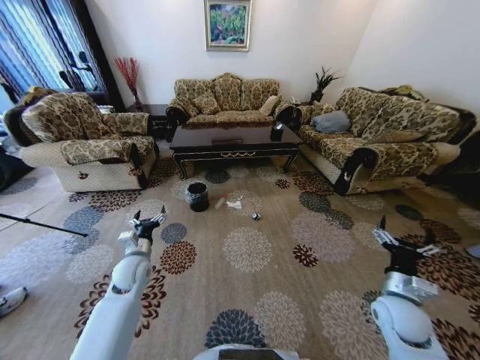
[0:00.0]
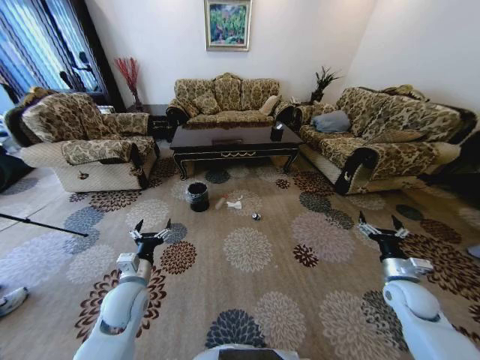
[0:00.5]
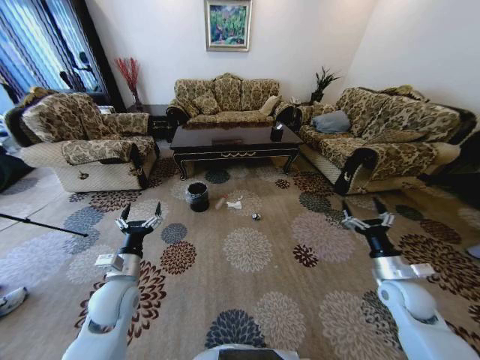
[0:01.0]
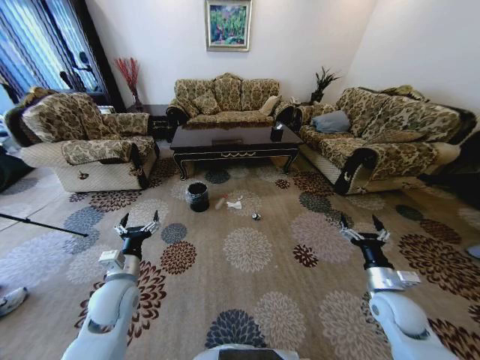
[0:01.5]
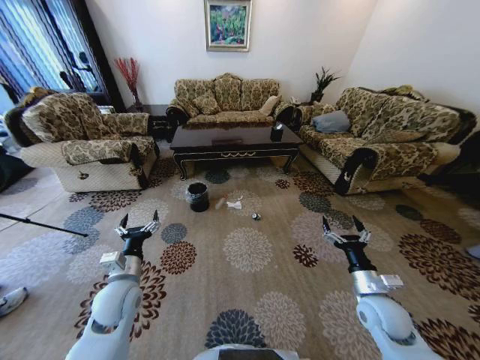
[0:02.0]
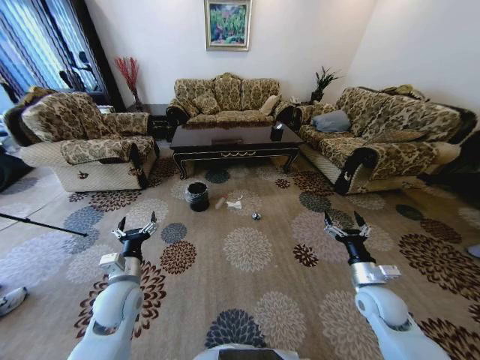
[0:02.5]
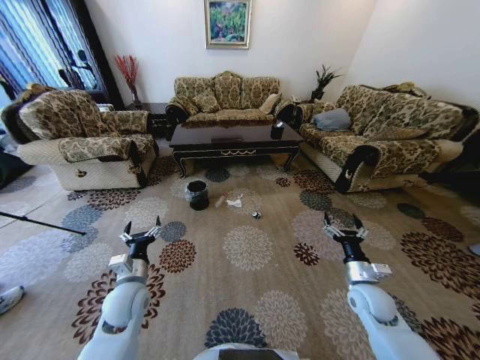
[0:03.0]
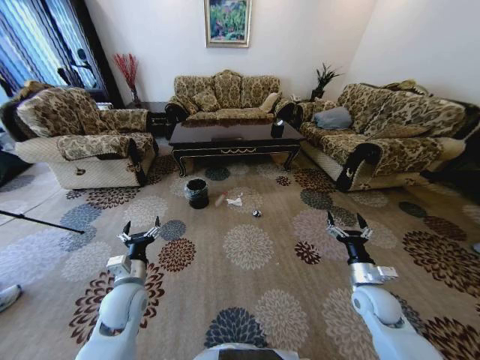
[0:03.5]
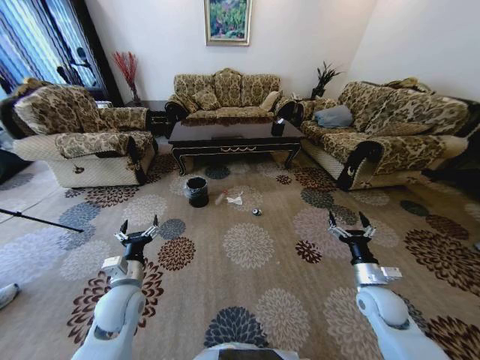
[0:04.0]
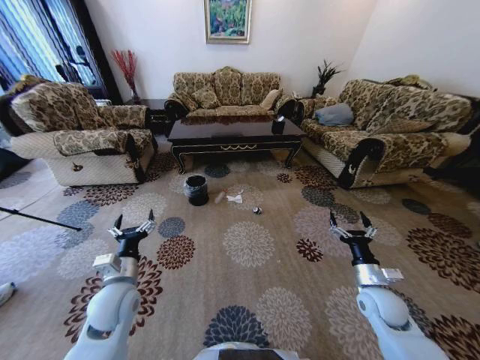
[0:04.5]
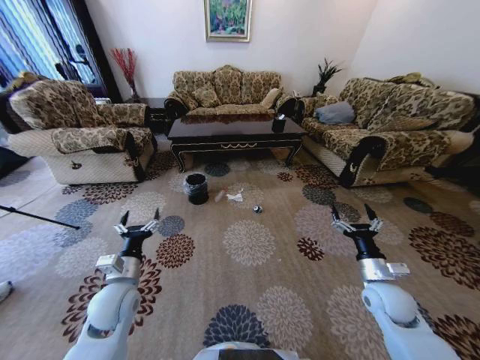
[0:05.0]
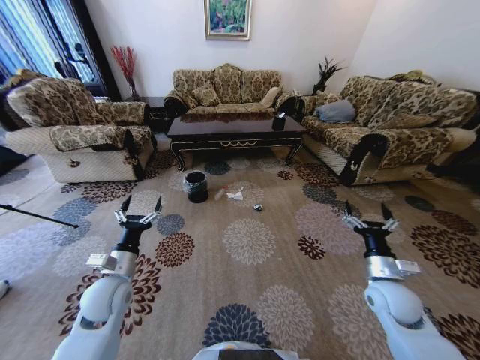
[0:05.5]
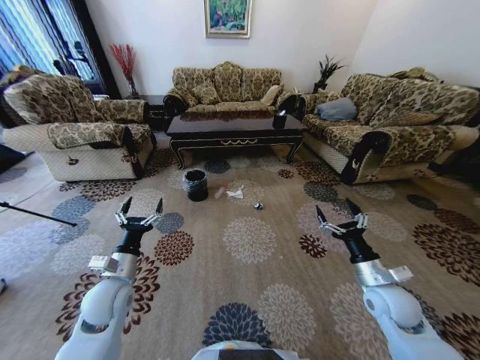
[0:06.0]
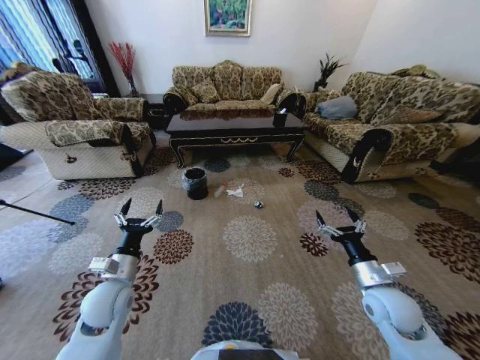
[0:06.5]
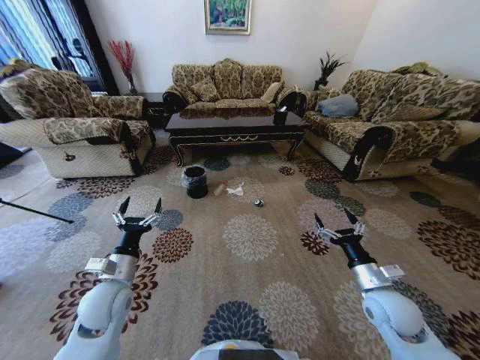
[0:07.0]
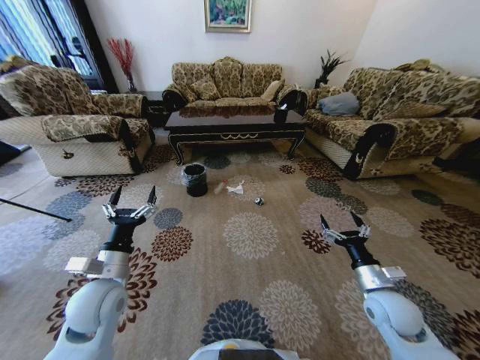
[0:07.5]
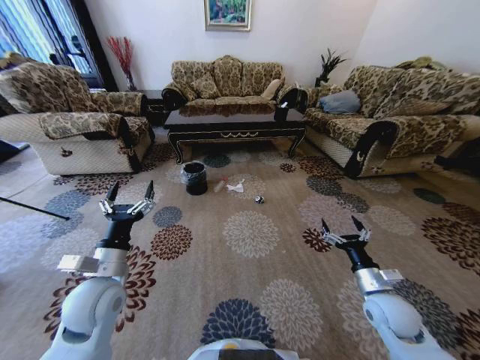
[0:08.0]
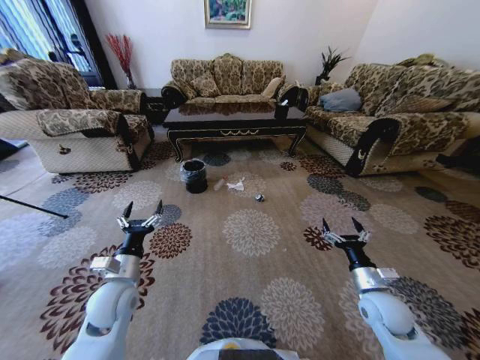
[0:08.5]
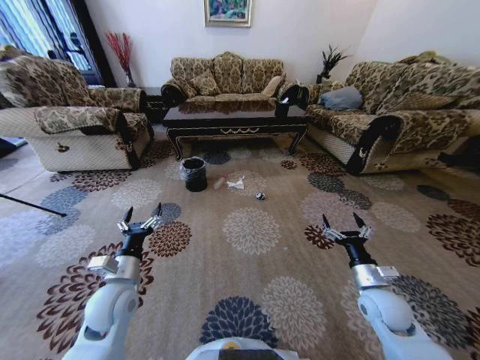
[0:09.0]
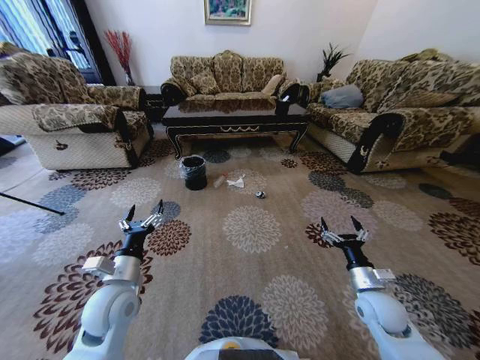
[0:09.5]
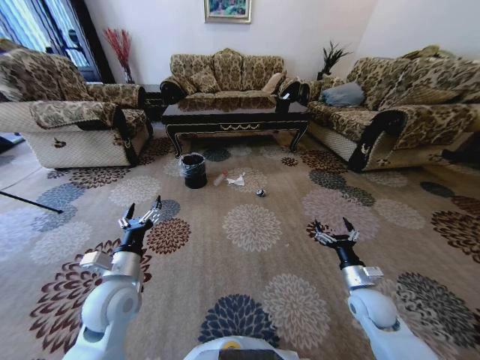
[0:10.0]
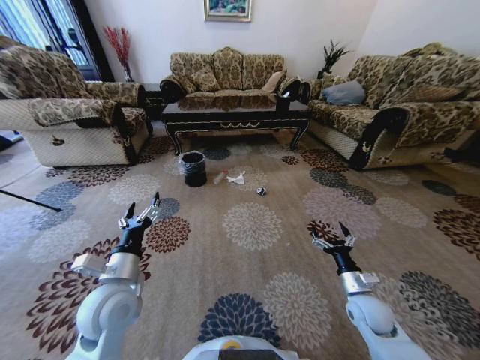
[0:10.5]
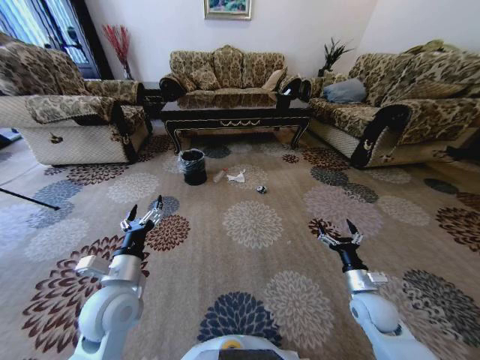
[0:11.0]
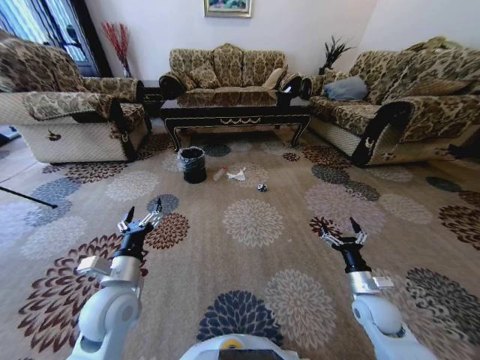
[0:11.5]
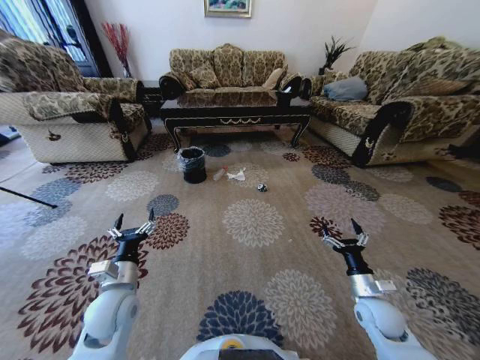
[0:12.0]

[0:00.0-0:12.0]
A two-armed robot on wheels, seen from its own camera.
Task of the whole recording: Move to the front of the table and pick up the trash from the floor, then place it into the trash bin.
0:04.0 to 0:06.0: The right gripper heads upward, covering roughly 5 cm.
0:06.0 to 0:08.0: The left gripper is displaced upward by roughly 5 cm.

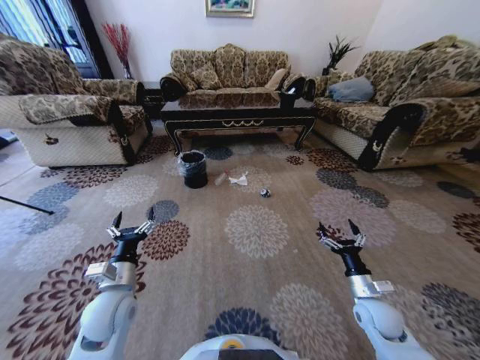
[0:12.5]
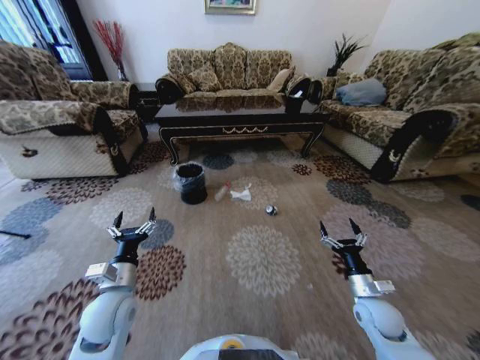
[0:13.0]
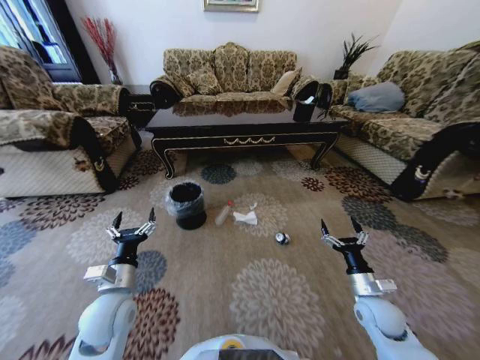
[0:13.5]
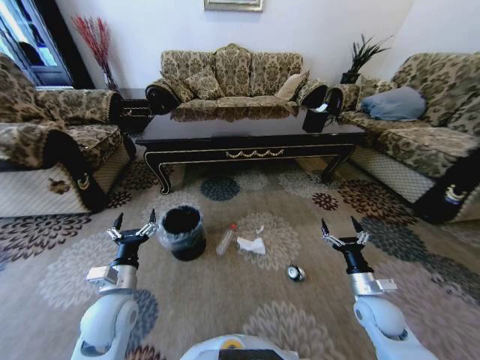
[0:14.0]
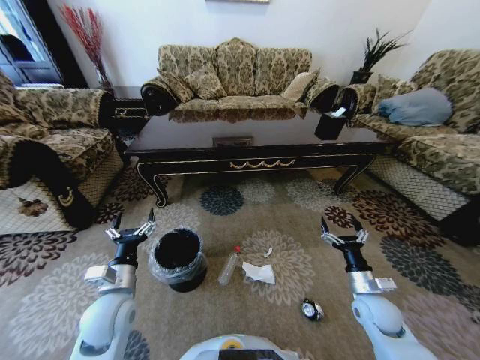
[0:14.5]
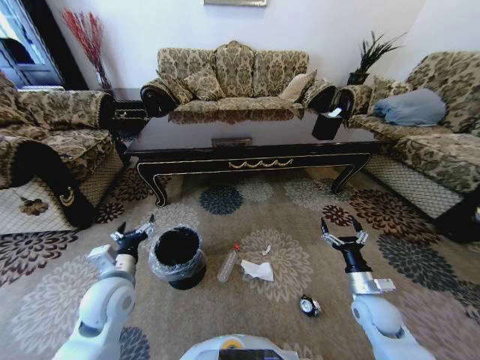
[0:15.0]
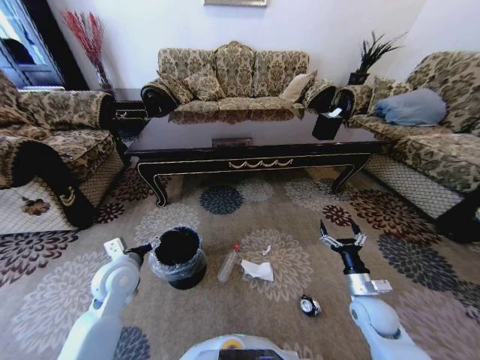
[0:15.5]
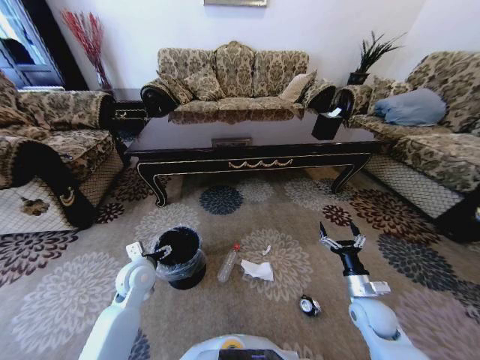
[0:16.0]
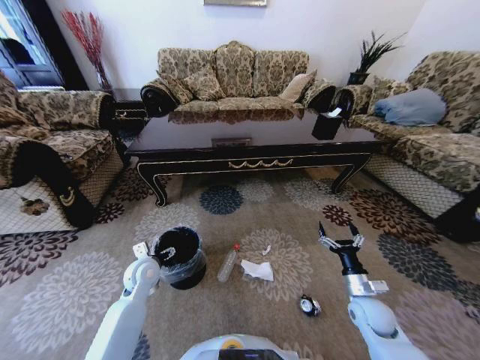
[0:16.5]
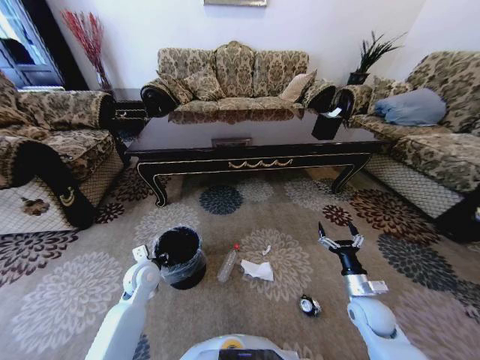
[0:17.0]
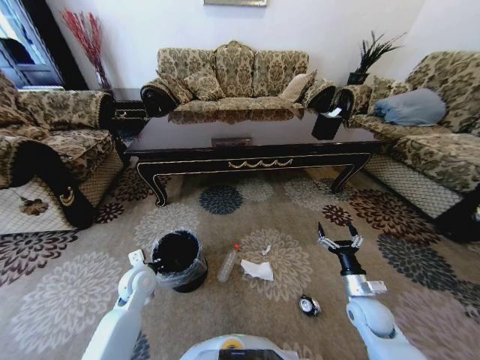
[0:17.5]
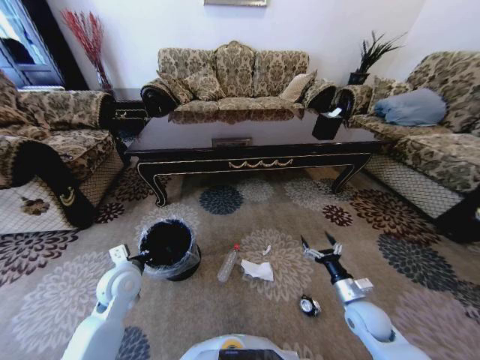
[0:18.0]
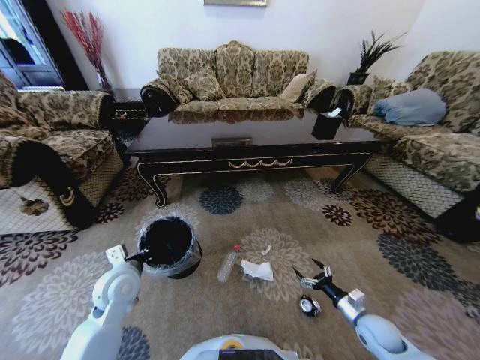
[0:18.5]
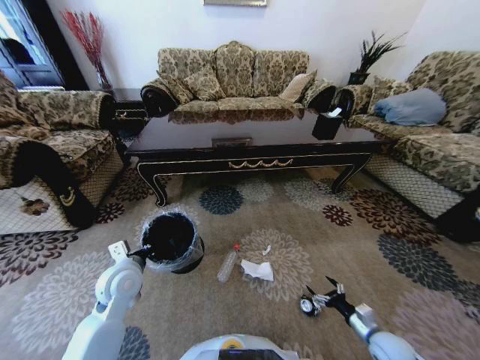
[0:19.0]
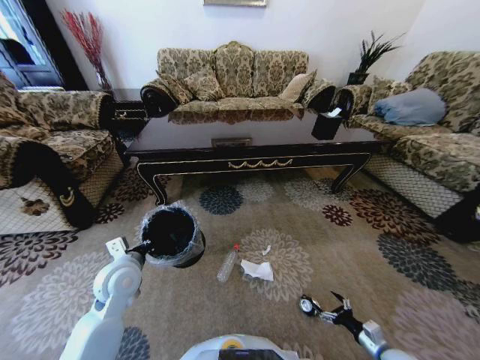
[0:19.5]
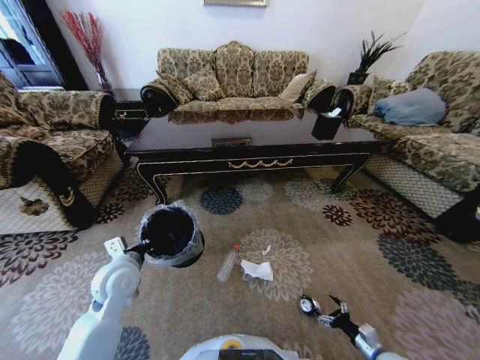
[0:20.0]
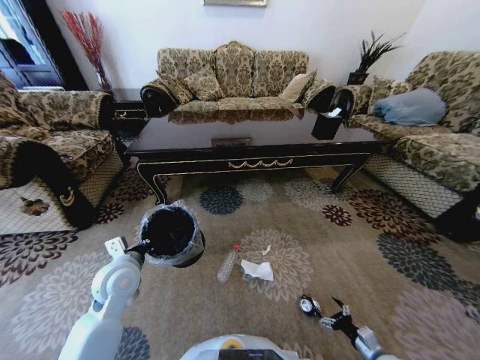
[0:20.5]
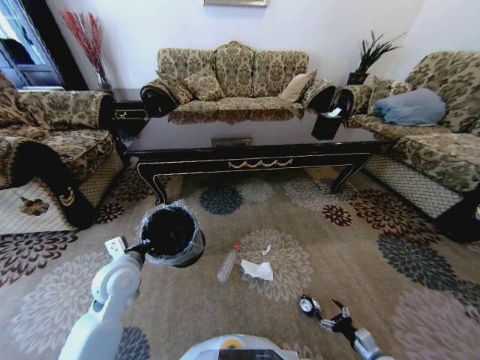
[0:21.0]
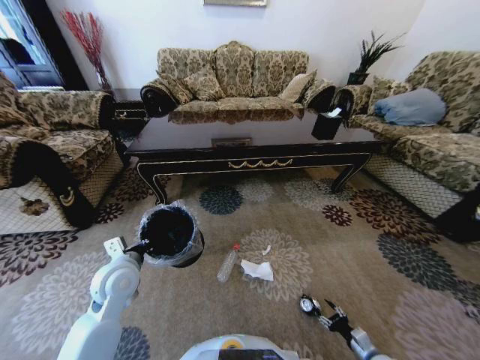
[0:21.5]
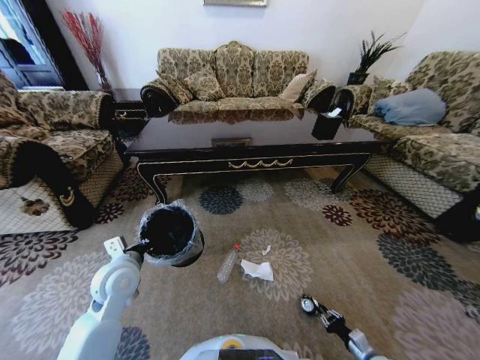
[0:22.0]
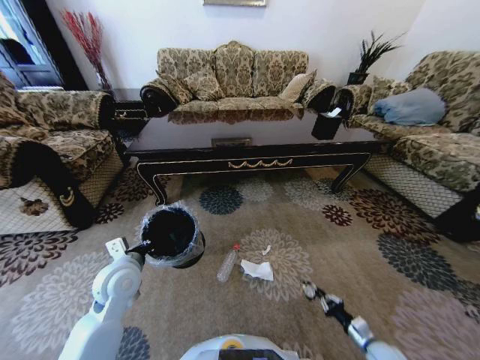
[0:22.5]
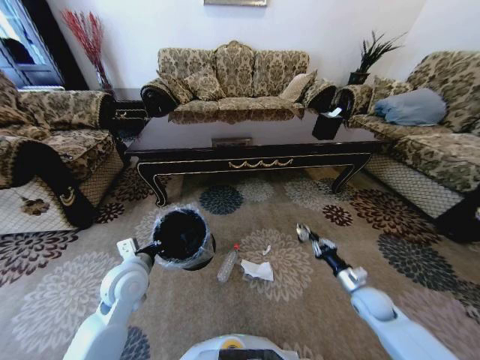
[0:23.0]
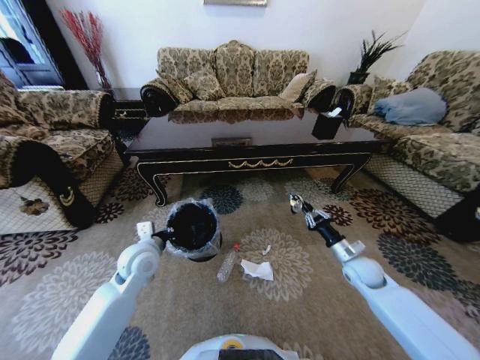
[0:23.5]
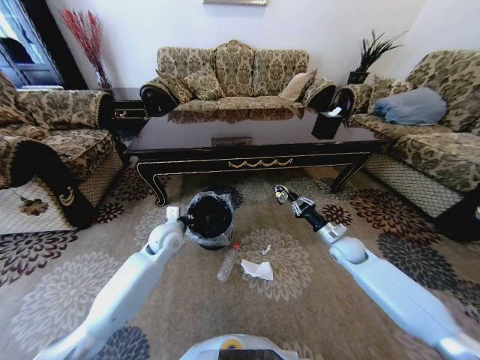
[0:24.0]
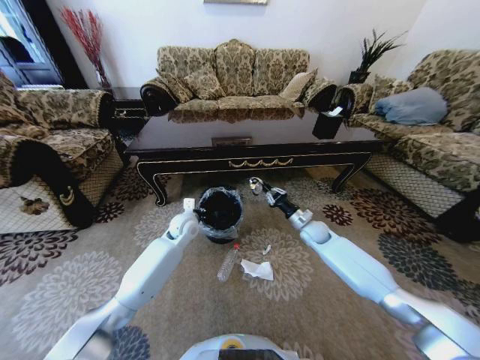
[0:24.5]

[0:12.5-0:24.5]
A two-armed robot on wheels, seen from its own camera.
Task of the whole recording: Move to the front of the table and pick up the trash from the floor, then place it into the trash bin.
0:14.5 to 0:16.5: The left gripper travels forward and downward by roughly 15 cm.
0:16.5 to 0:18.5: The left gripper heads upward and backward, covering some 10 cm, and closes. The right gripper is displaced downward by some 5 cm.
0:18.5 to 0:20.5: The right gripper goes some 15 cm downward, backward and to the right.
0:20.5 to 0:22.5: The right gripper closes its fingers.
0:22.5 to 0:24.5: The left gripper moves forward and to the right, approximately 20 cm. The right gripper travels forward, upward and to the left by some 40 cm.

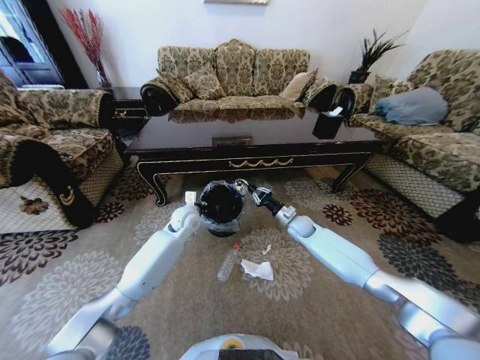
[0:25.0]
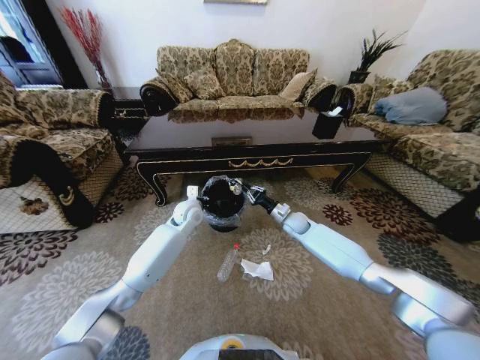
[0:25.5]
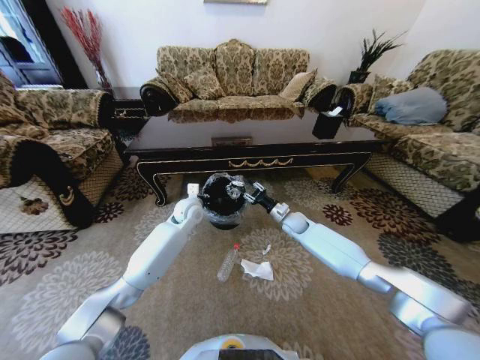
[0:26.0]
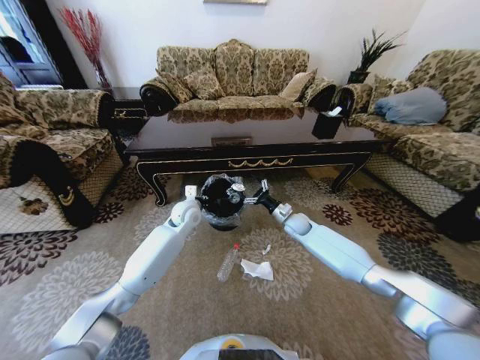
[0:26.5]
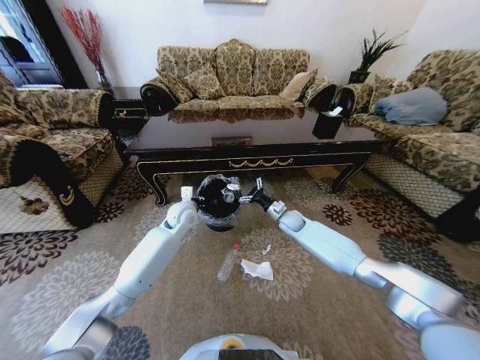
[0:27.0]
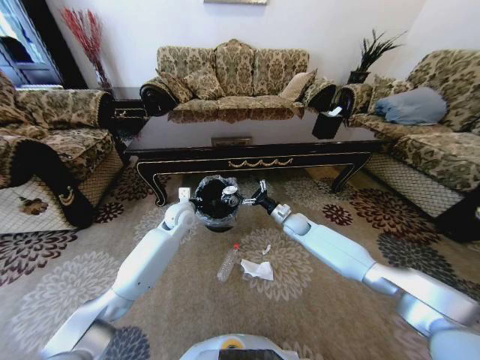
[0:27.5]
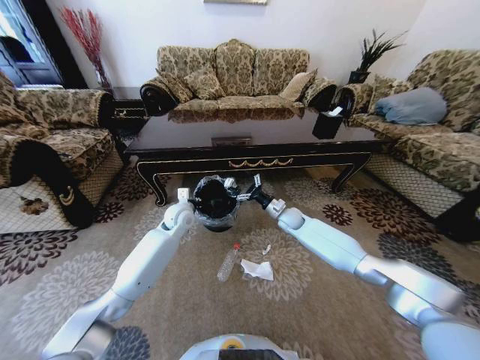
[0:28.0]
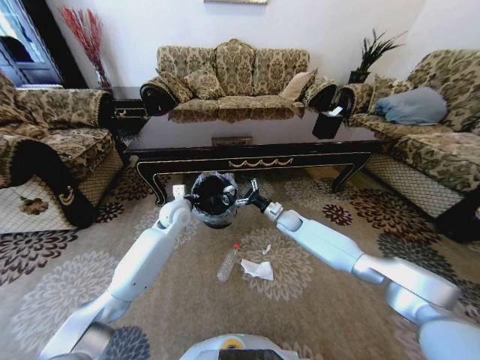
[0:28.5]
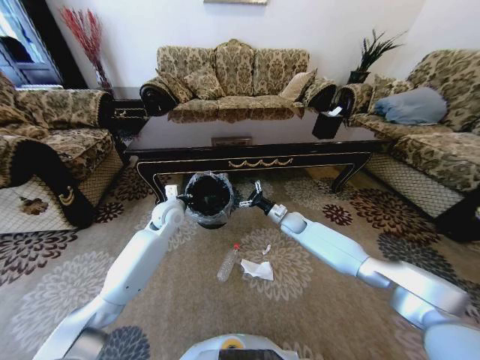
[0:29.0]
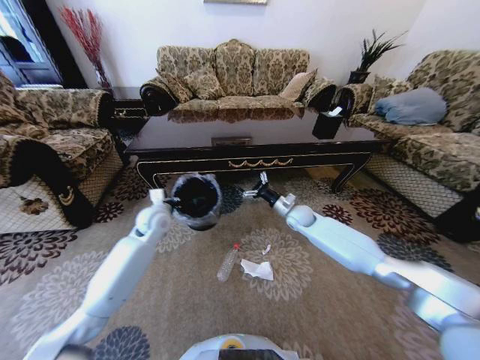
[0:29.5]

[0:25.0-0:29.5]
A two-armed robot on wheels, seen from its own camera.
Task of the whole recording: Move to the front of the table and pick up the trash from the floor, then place it into the trash bin.
0:25.0 to 0:27.0: The right gripper opens.
0:27.0 to 0:29.5: The left gripper moves to the left, roughly 10 cm.
